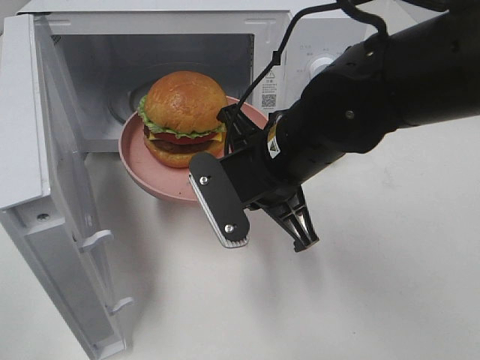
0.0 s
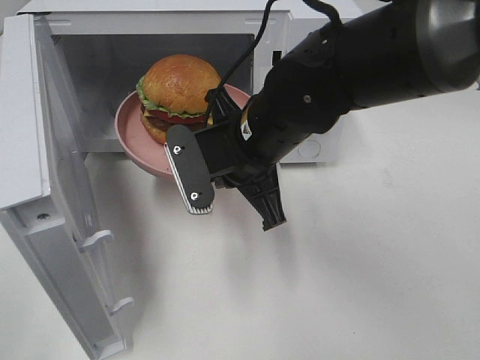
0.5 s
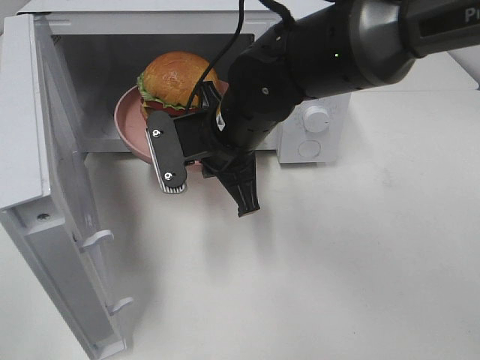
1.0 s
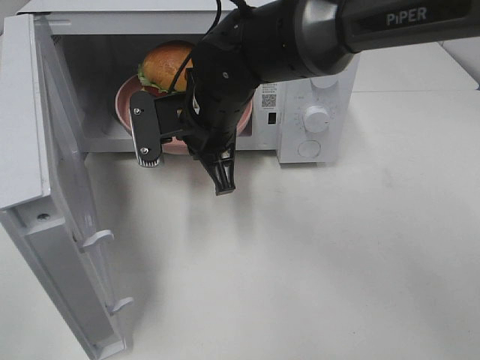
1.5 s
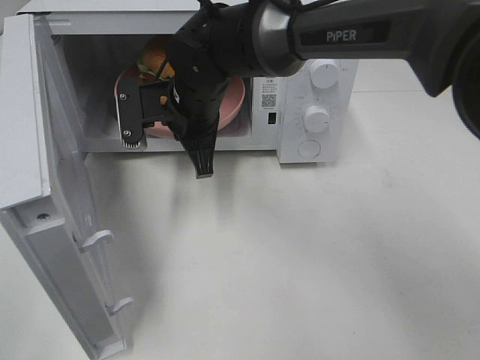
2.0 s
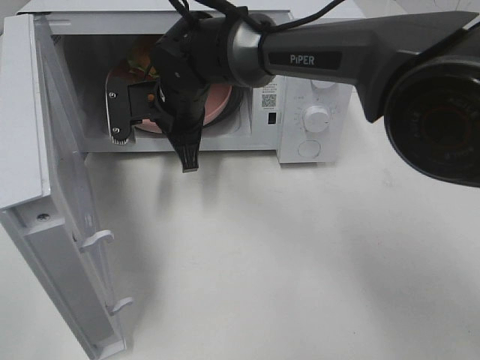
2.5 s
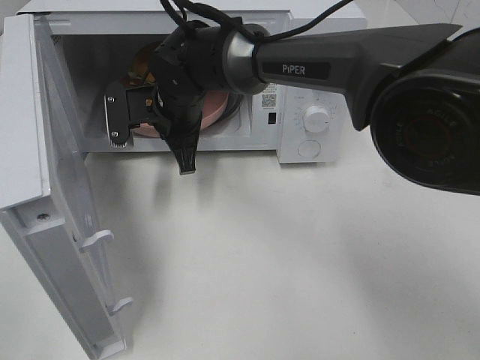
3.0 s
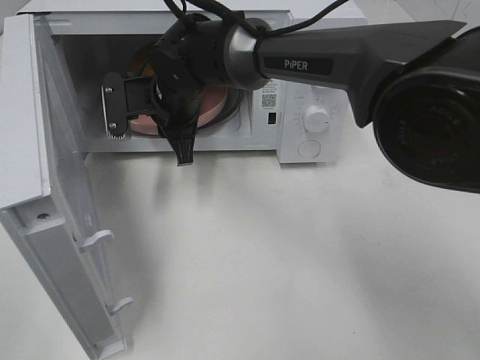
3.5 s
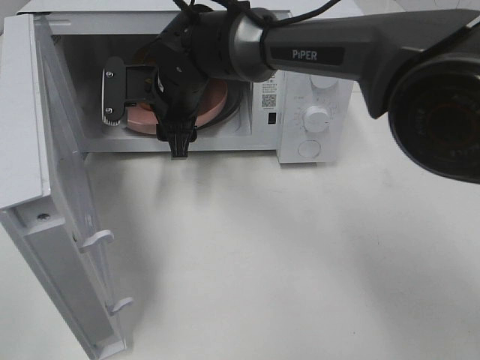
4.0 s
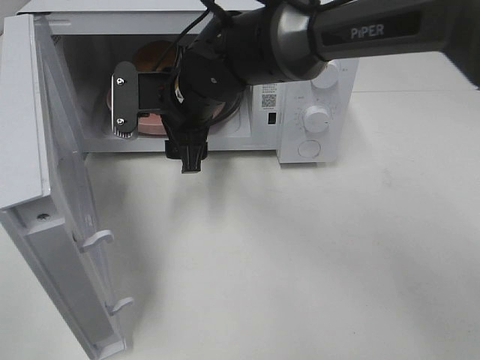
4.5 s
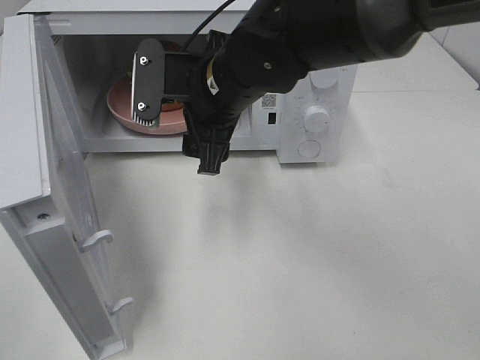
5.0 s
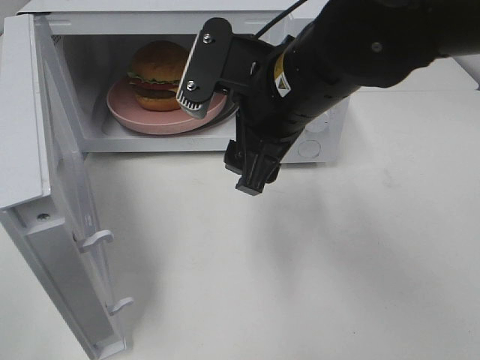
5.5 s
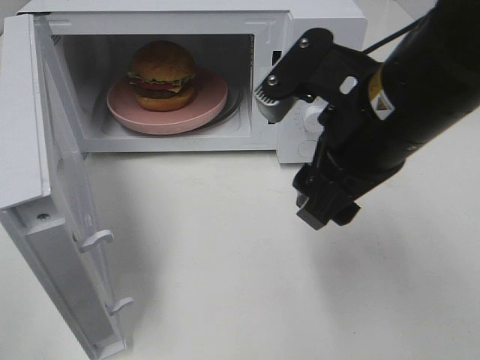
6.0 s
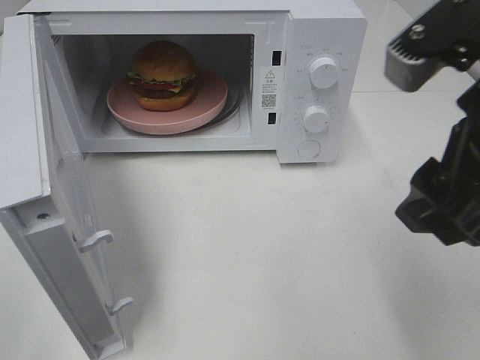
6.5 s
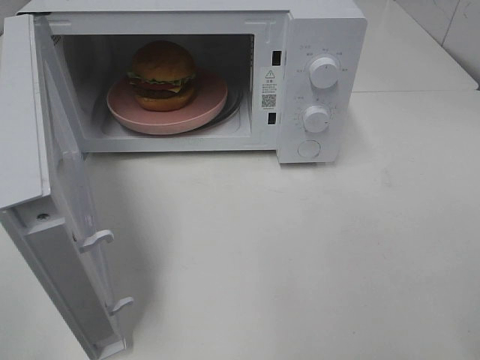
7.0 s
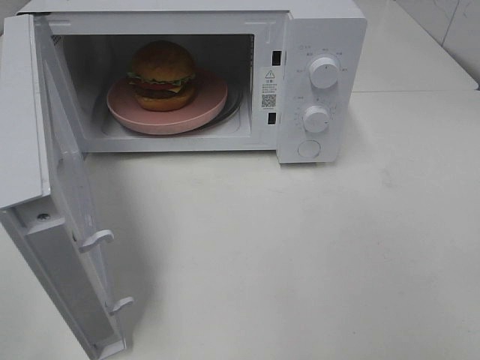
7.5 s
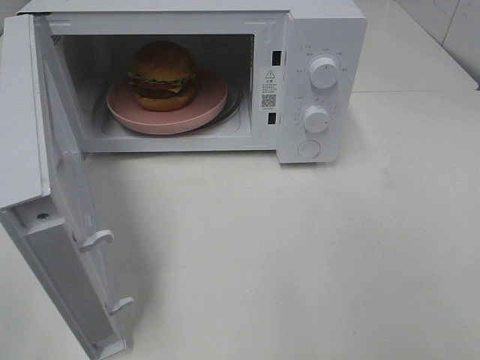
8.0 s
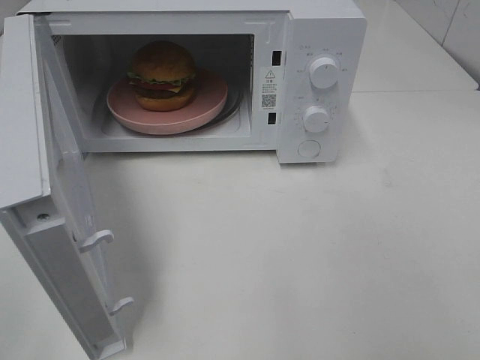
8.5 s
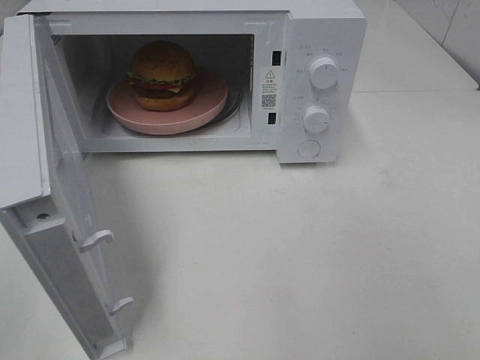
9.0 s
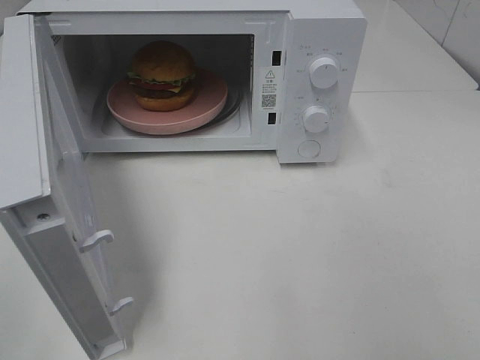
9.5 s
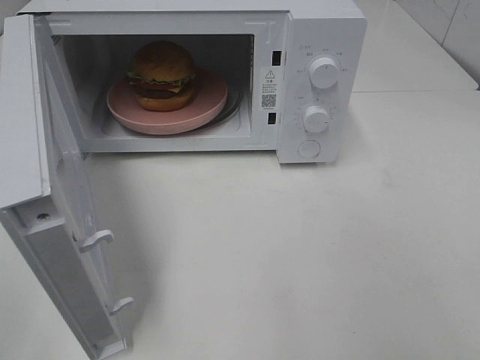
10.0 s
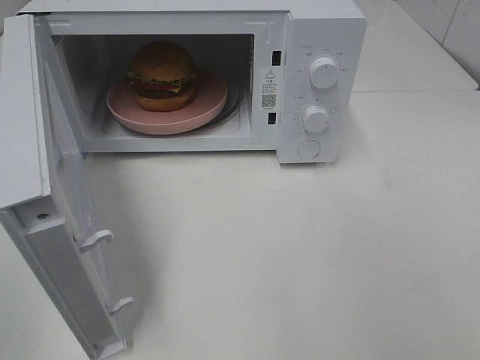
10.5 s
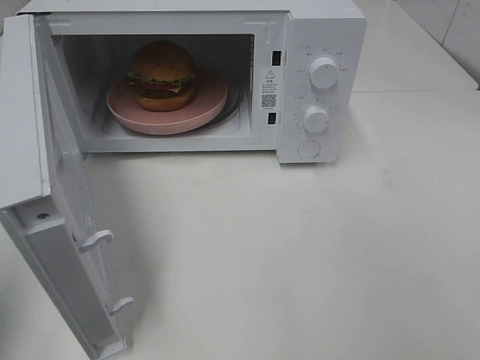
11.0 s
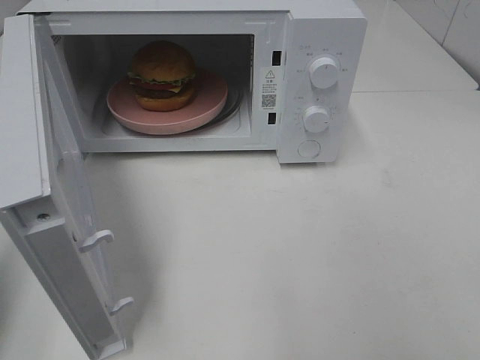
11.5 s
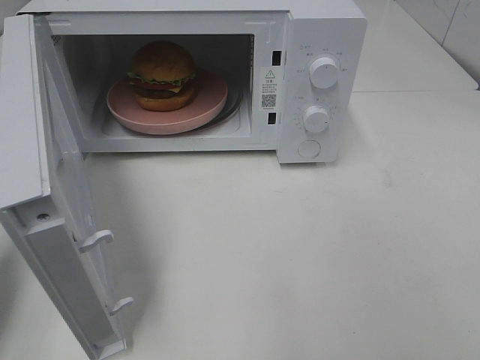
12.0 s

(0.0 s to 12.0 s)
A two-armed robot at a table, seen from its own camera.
Task of the whole recording: Heat the burger.
Step, 0.0 s - 3.5 s: Right hand: place the plate in the microwave.
0.0 s - 2.0 s: The right gripper travels forward and to the left by some 15 cm.
2.0 s - 4.0 s: The right gripper opens.
4.0 s - 6.0 s: The right gripper heads backward, to the right and upward, covering approximately 25 cm.
6.0 s - 8.0 s: The right gripper moves backward and to the right, about 30 cm.
10.0 s - 12.0 s: The left gripper goes roughly 15 cm forward, and closes its fingers.

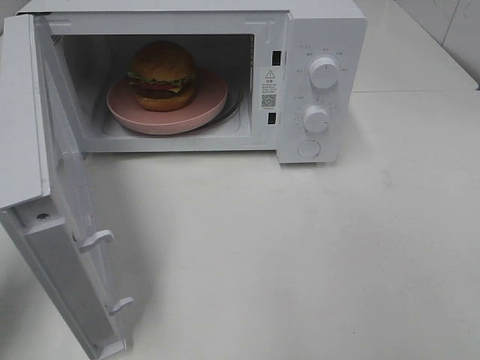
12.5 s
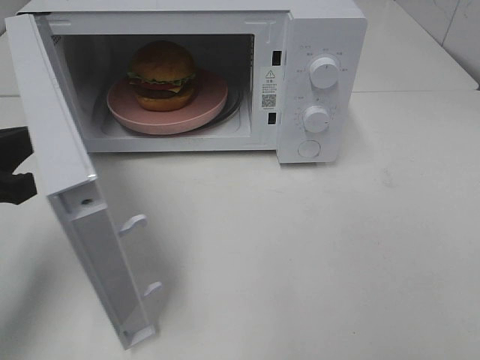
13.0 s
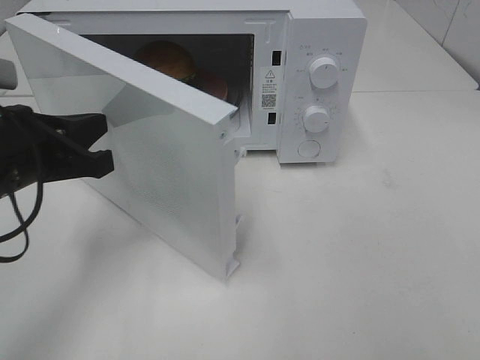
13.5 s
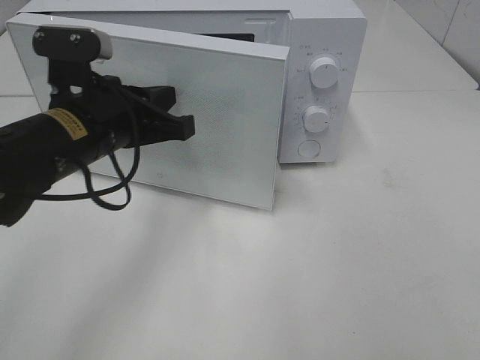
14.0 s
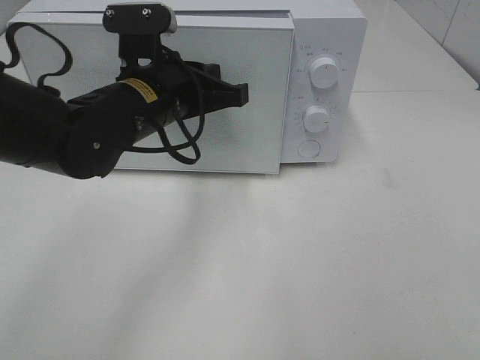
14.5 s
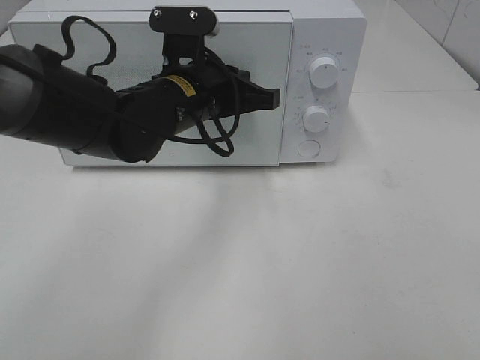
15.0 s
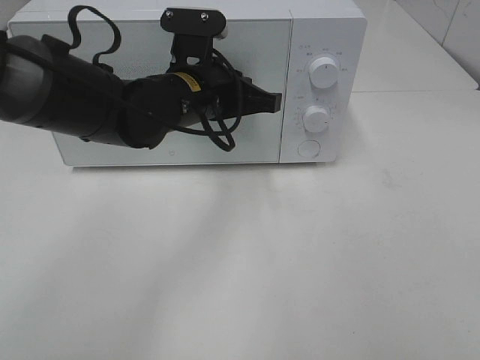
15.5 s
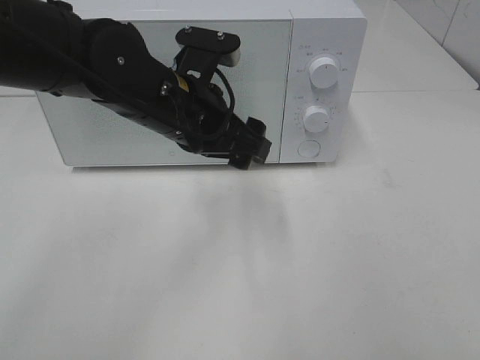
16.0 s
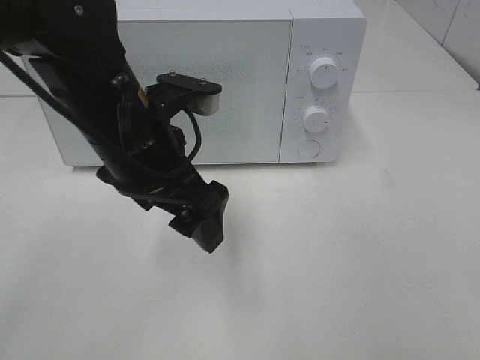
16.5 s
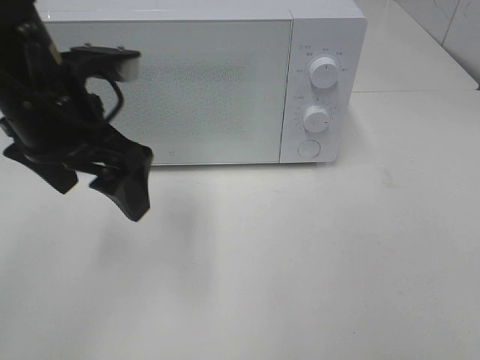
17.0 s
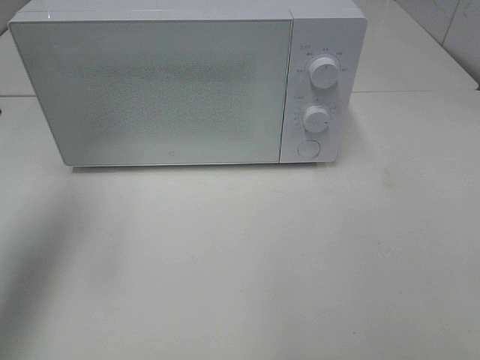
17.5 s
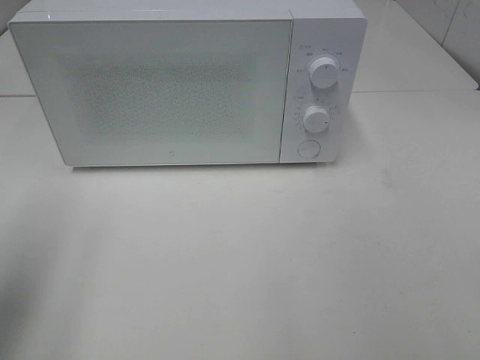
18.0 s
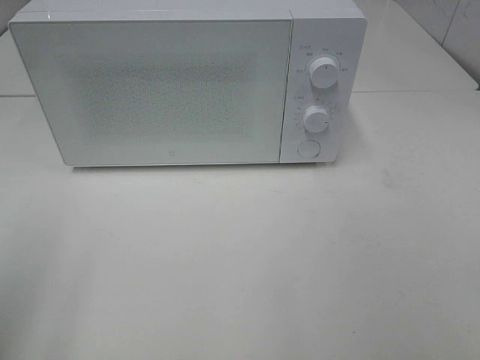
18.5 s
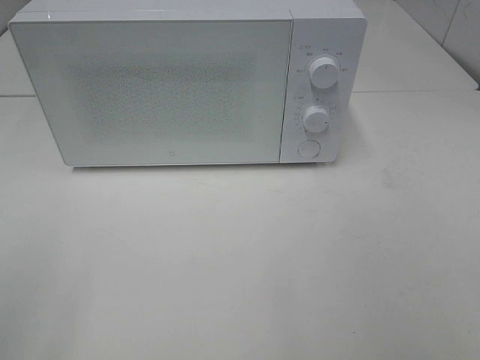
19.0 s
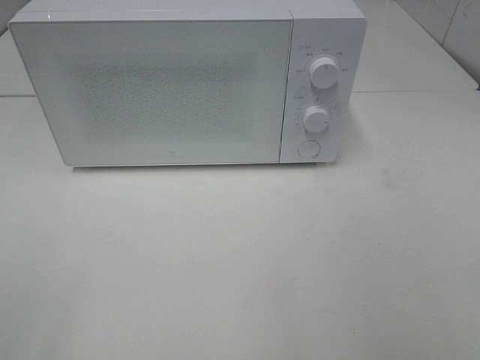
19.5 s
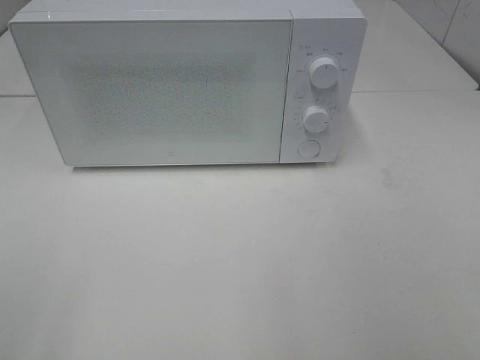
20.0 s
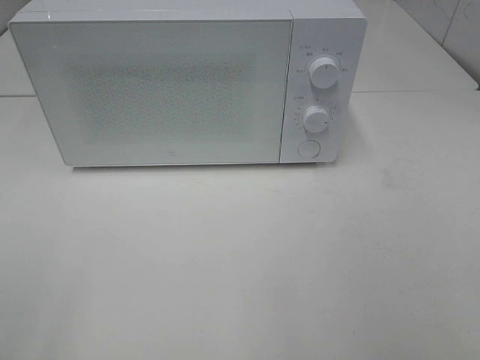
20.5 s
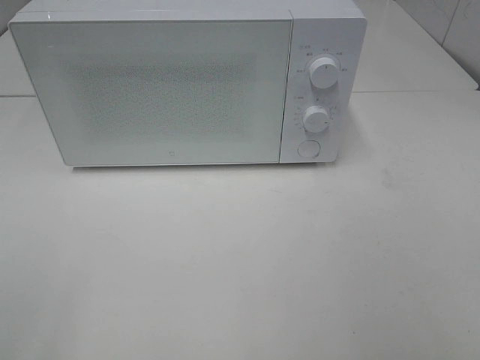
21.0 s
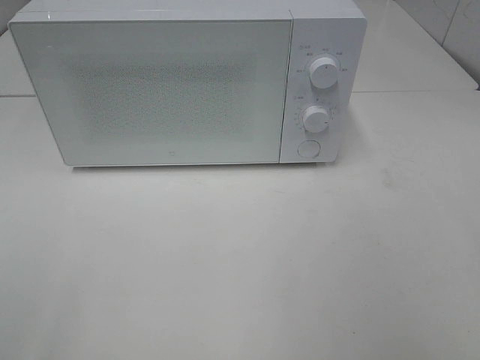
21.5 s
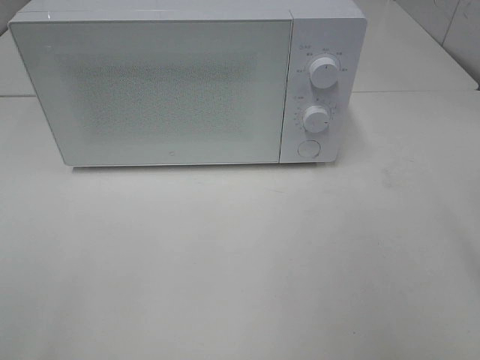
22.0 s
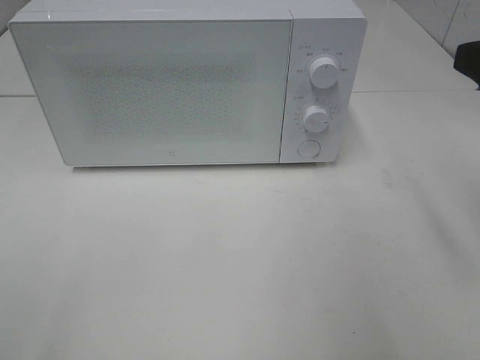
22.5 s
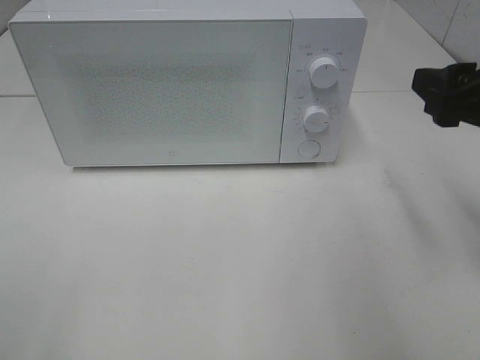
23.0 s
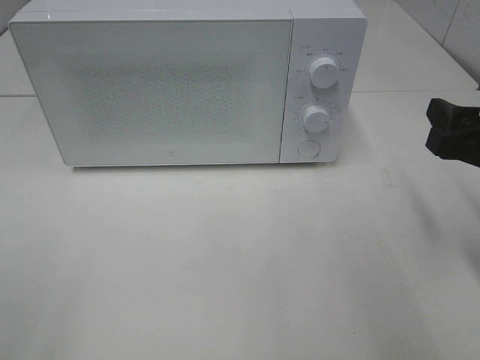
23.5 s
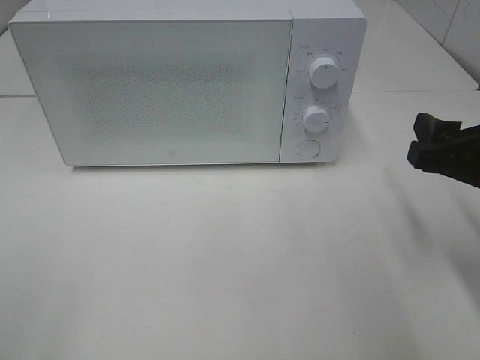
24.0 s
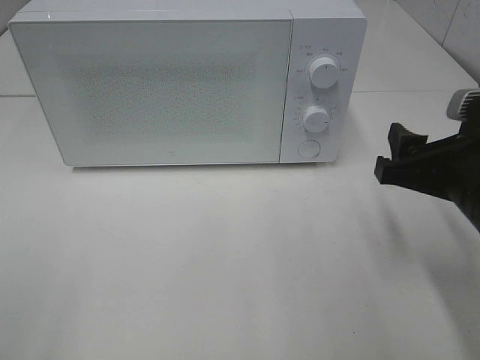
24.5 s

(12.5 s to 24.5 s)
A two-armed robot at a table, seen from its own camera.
Task of the whole recording: Heat the burger.
Step, 12.5 s - 15.5 s: Left hand: close the microwave door.
12.5 s - 14.5 s: The left gripper goes some 25 cm to the right and forward.
14.5 s - 16.5 s: The left gripper heads backward, covering some 5 cm, and opens its fingers.
16.5 s - 18.5 s: The left gripper moves to the left and backward, roughly 30 cm.
22.5 s - 24.5 s: The right gripper is displaced downward by roughly 10 cm.

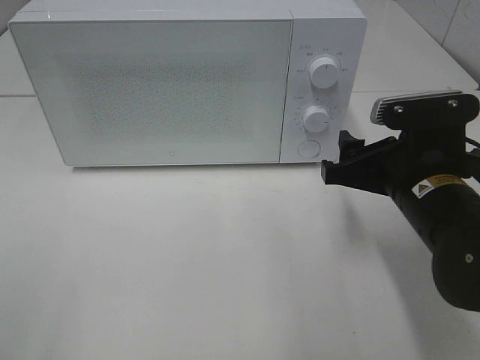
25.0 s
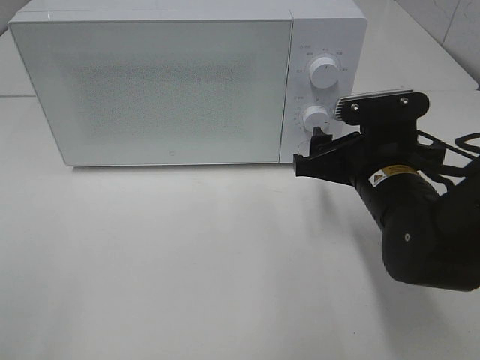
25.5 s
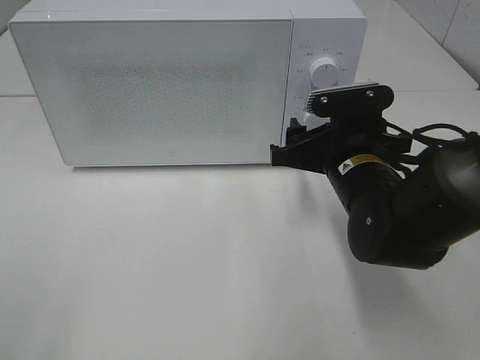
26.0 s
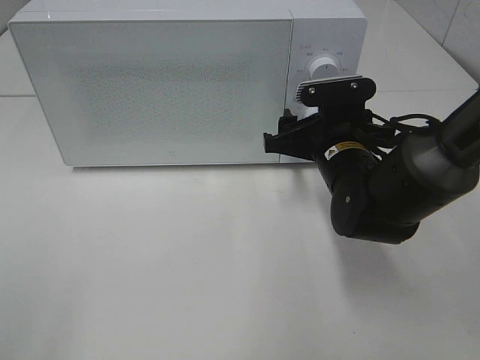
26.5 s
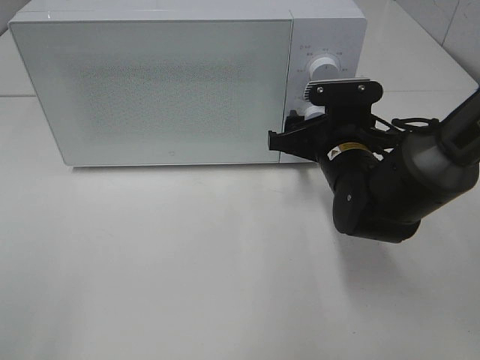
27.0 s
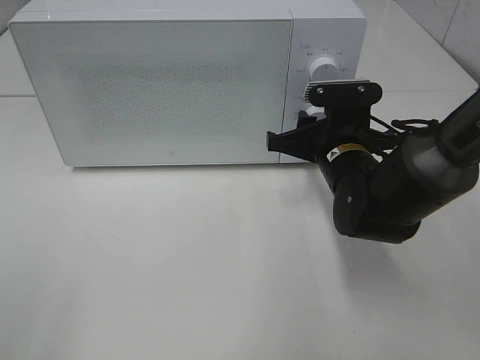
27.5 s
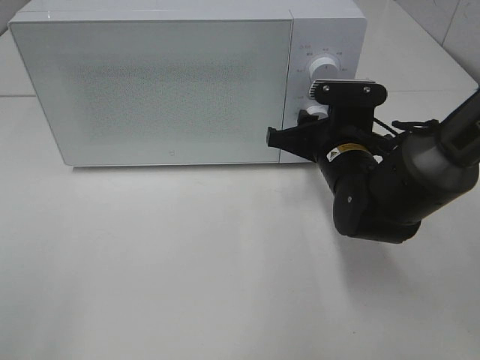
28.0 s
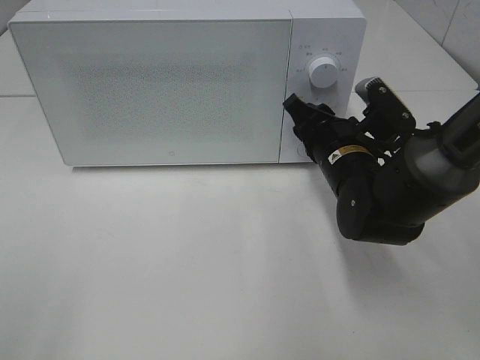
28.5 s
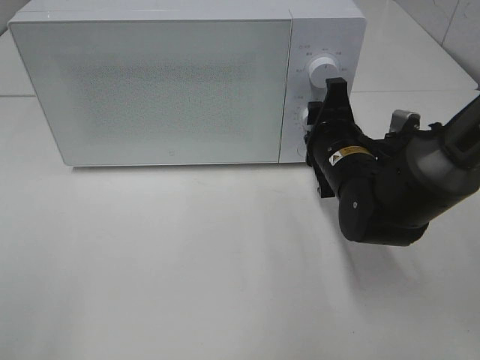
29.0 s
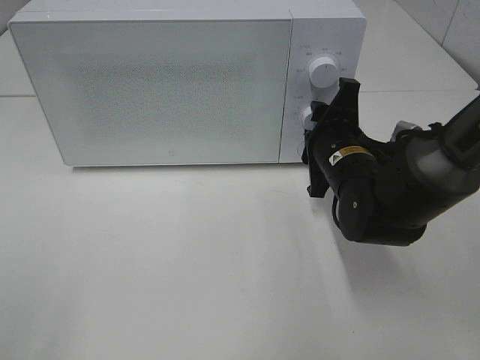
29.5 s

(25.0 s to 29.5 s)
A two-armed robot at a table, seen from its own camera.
Task of the whole recording: Heat the burger.
25.0 s - 27.0 s: The right gripper moves forward, roughly 10 cm.
